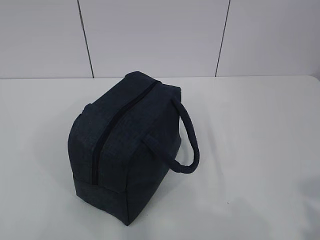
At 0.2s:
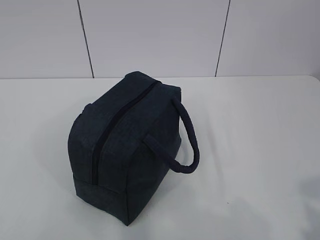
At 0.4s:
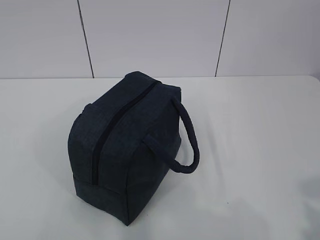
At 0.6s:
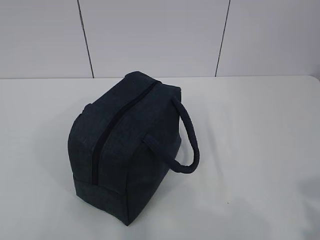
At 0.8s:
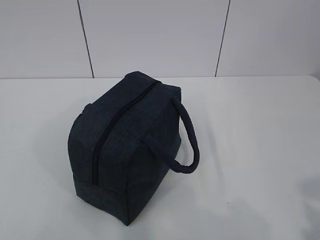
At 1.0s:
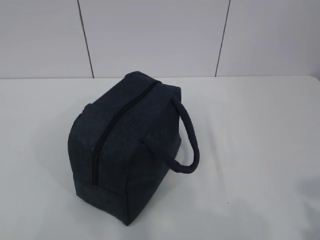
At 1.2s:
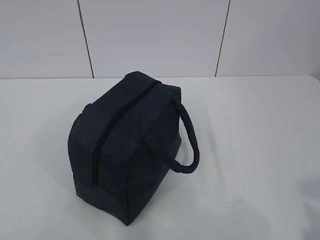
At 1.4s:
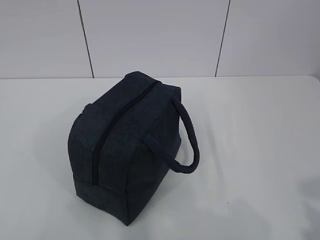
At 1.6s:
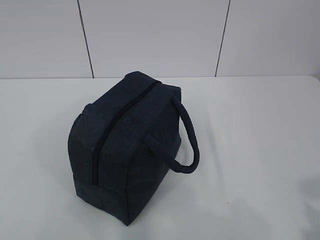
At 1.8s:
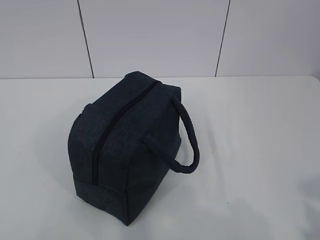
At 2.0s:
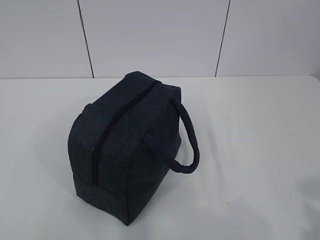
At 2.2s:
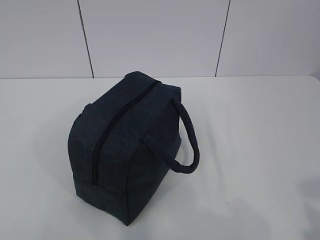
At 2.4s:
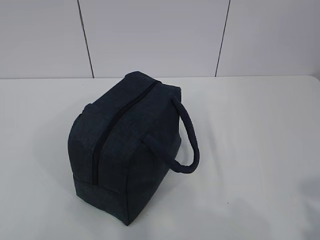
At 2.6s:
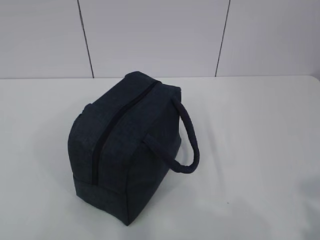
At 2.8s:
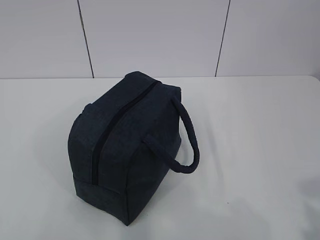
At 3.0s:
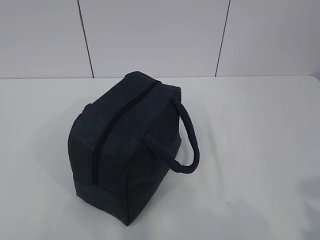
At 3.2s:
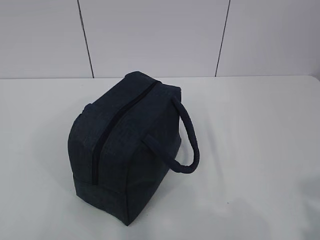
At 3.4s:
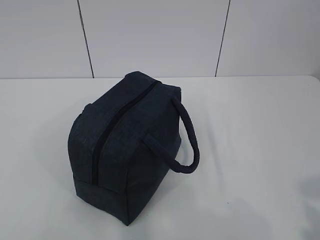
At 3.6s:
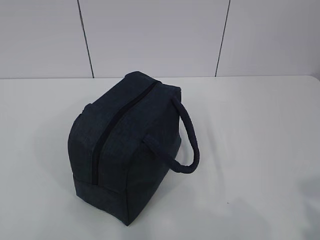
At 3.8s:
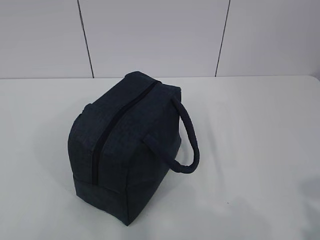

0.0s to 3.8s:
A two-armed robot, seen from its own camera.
0.0s to 3.8s: Neither gripper changes place.
